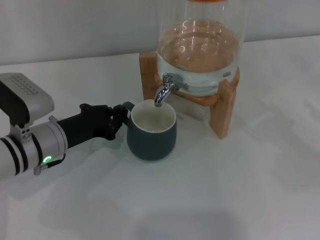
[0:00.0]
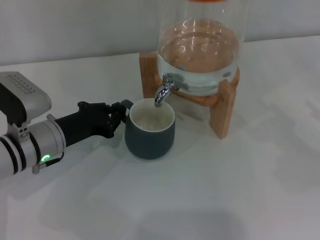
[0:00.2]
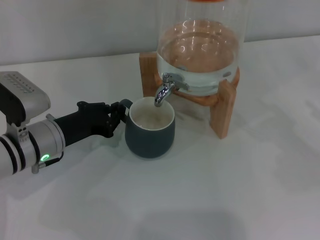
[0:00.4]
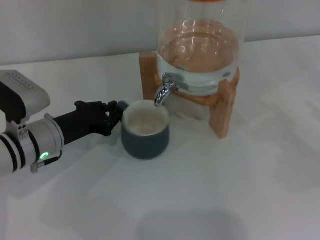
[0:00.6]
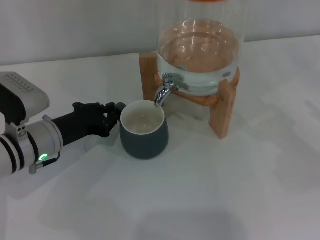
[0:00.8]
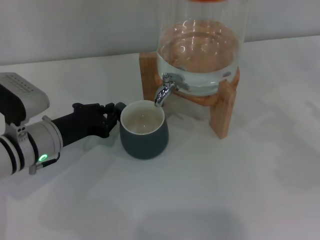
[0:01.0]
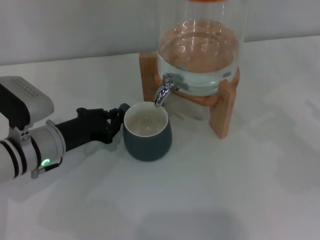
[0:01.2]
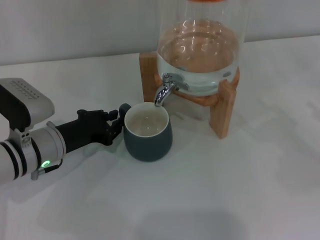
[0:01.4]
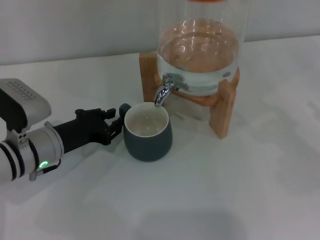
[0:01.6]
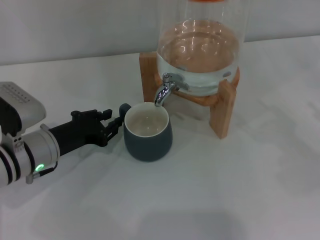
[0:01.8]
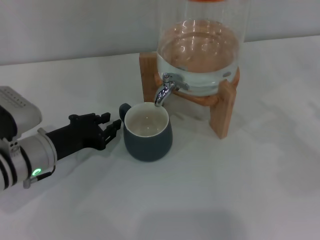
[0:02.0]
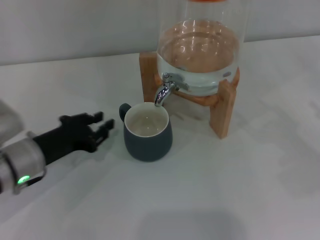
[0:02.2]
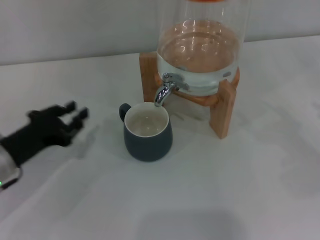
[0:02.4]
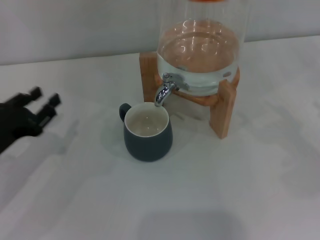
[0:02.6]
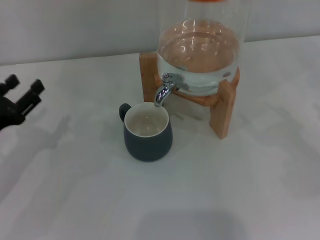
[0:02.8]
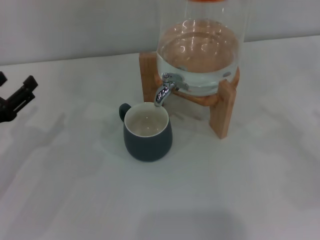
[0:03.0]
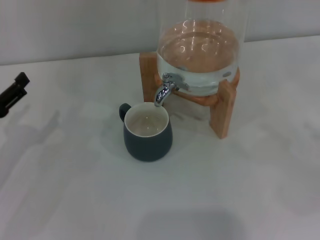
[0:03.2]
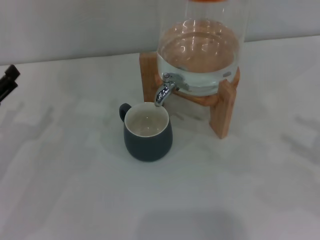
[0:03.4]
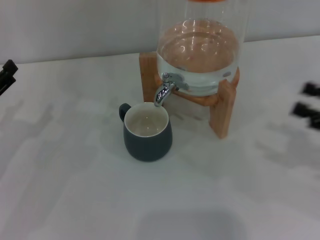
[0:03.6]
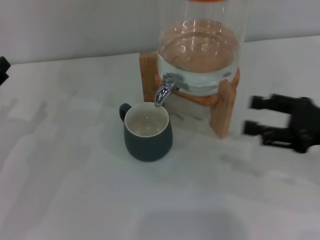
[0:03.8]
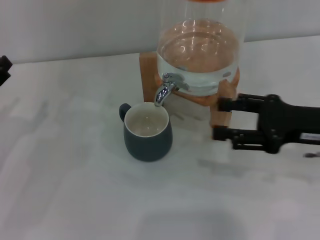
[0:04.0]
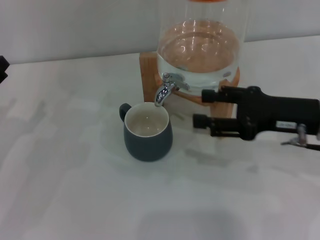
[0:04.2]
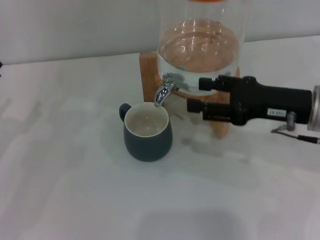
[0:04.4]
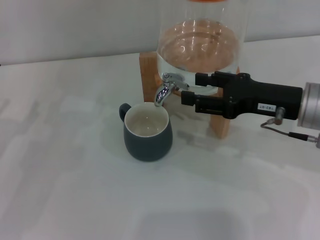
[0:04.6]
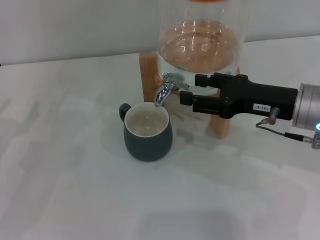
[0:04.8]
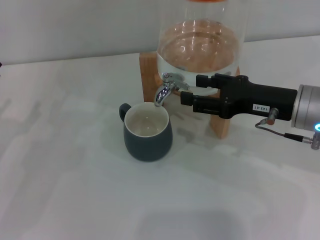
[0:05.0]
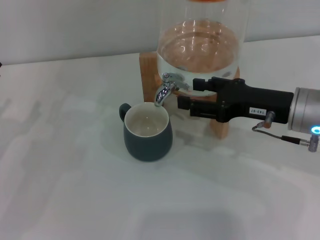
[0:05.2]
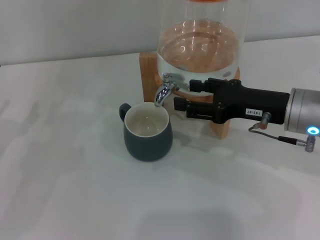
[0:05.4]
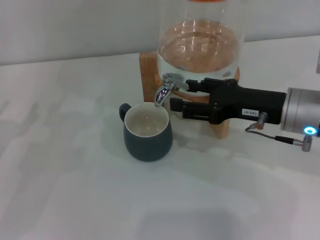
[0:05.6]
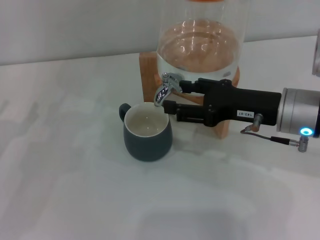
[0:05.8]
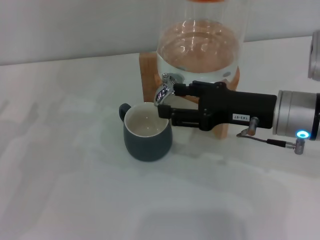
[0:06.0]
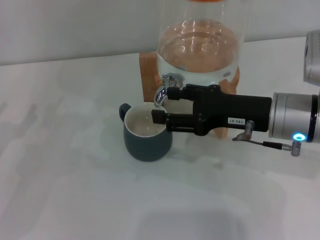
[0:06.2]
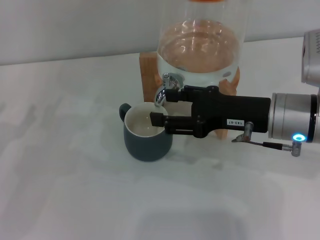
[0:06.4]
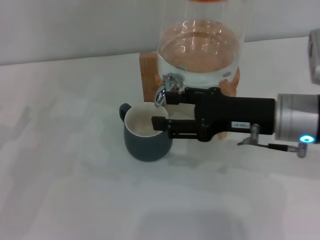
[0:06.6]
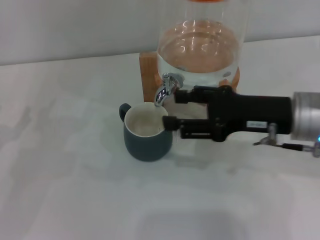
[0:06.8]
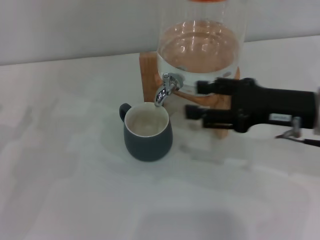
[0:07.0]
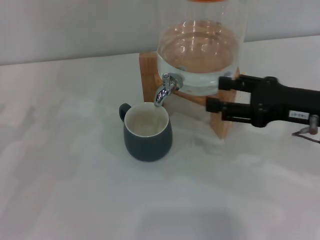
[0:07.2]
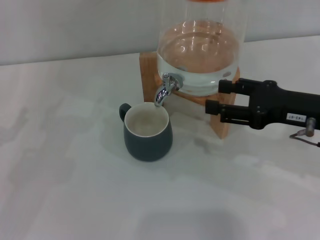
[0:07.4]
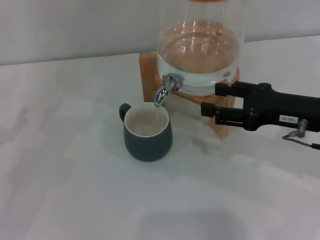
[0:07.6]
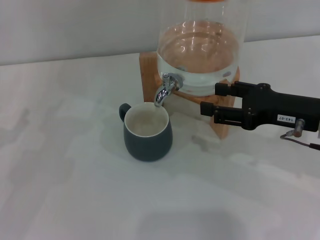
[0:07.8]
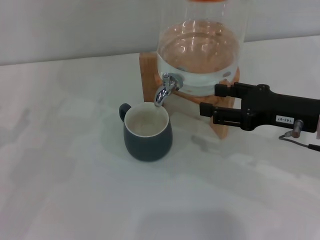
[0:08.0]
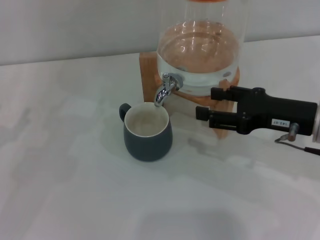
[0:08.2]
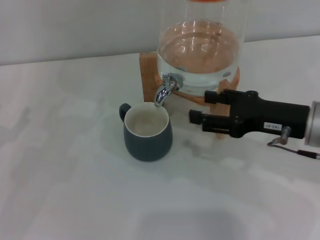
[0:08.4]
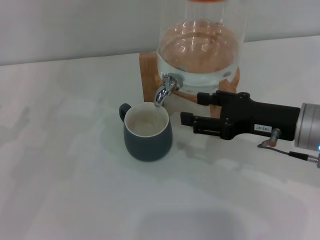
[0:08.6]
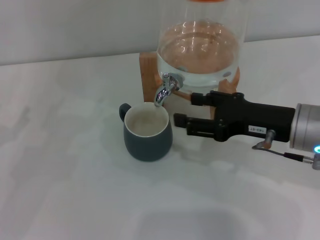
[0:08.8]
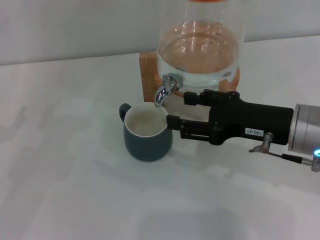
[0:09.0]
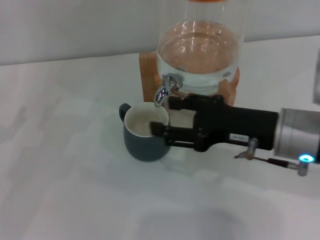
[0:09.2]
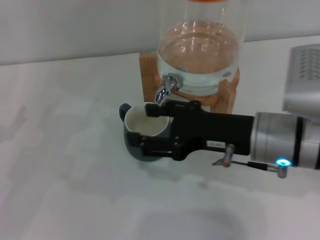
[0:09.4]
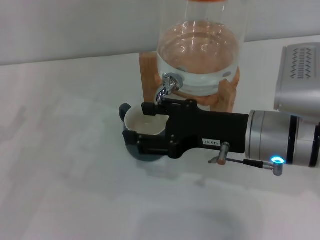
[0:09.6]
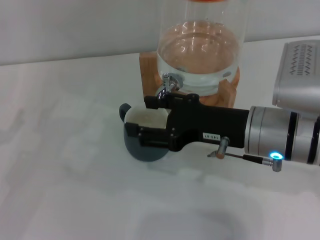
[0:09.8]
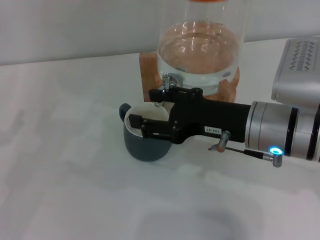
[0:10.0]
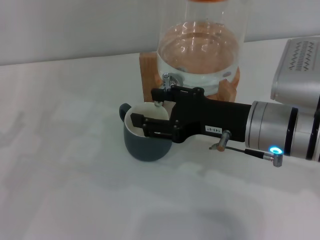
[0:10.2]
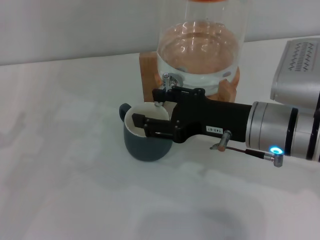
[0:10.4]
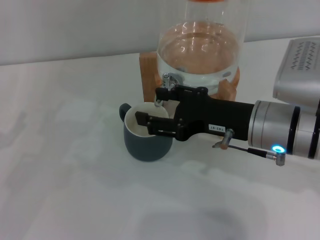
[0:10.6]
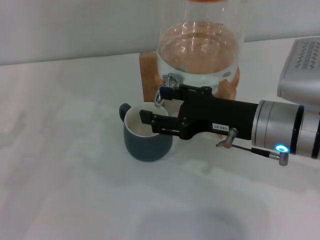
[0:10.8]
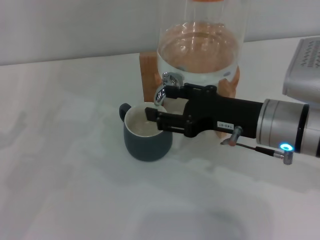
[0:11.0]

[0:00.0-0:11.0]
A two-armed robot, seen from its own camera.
Task of the whole recording: the left gripper pick up the black cup and place it horizontally under the faucet, the right gripper turn on the faucet to fill the cup, and then turn off the faucet.
Step, 2.0 to 6.6 s: Open the dispenser valve and fill the cup with water with the right gripper.
0.0 to 1.6 s: The two grippers keep their place.
1.6 to 3.2 s: The left gripper travels to the left and backward by some 10 cm, and opens.
3.2 to 4.8 s: The right gripper travels to the left and forward by approximately 20 cm.
4.8 to 6.2 s: There are only small adjustments of the grippers.
6.2 to 7.8 s: The right gripper is displaced to the right by roughly 5 cm.
7.8 to 9.4 s: The right gripper shifts approximately 10 cm to the left.
9.4 to 11.0 s: The grippers move only a little.

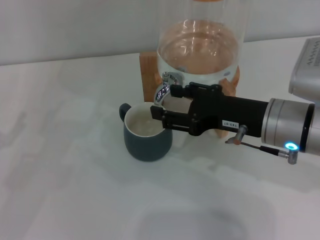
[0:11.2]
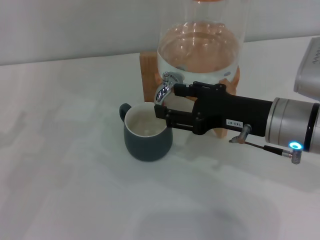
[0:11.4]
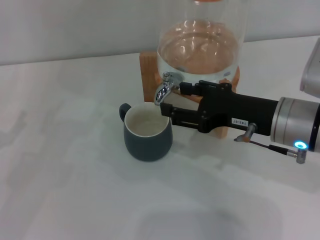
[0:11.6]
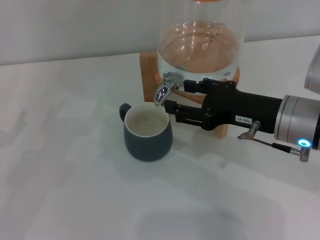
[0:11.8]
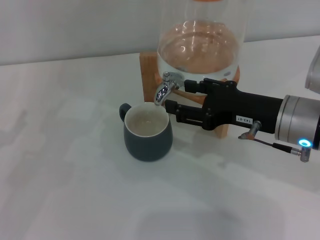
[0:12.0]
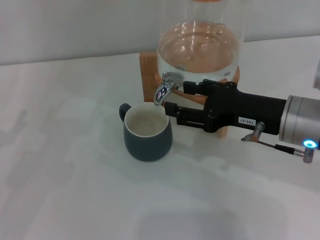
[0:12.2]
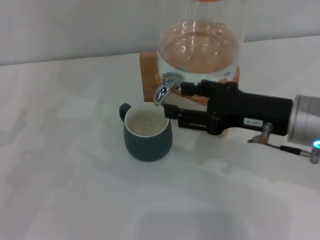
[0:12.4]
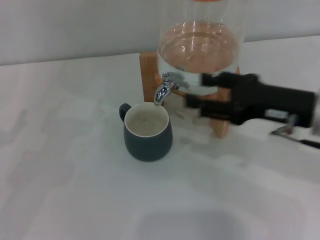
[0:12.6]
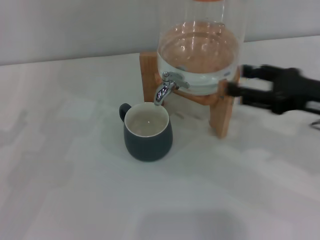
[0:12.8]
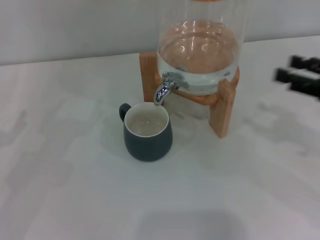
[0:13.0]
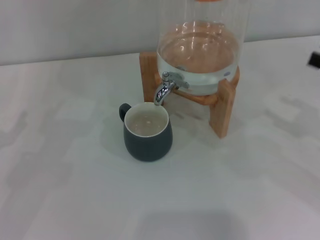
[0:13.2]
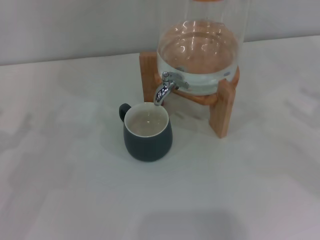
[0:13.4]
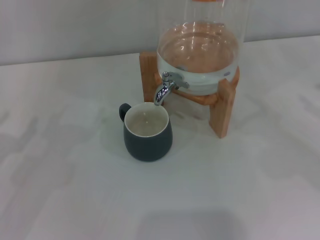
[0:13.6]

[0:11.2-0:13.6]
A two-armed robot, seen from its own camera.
Task of the whole recording: the left gripper pick up the black cup and place it horizontally under the faucet, the right gripper turn on the faucet to fill the cup, and then turn off the faucet.
11.2 to 12.4 s: The grippers make only small movements.
12.4 to 13.6 s: The right gripper goes approximately 20 cm to the right.

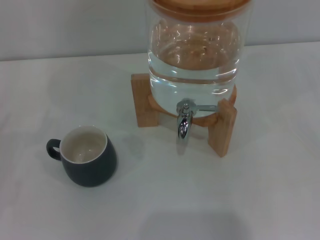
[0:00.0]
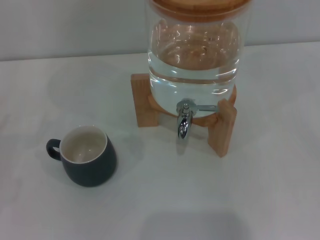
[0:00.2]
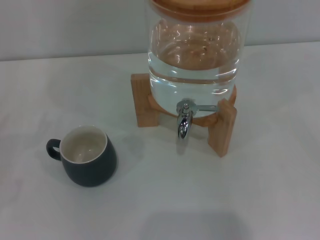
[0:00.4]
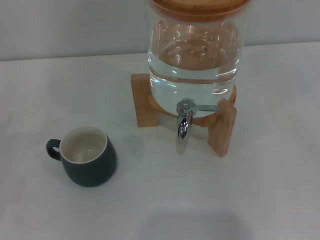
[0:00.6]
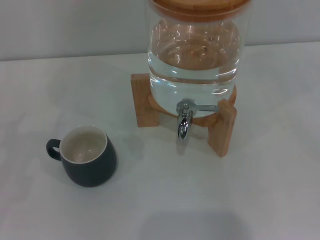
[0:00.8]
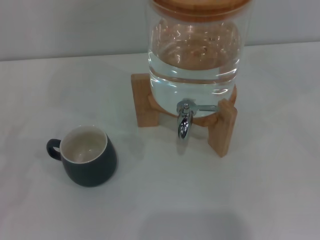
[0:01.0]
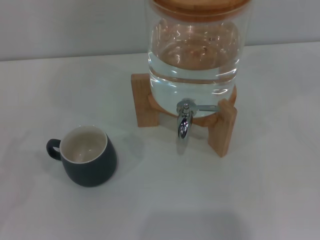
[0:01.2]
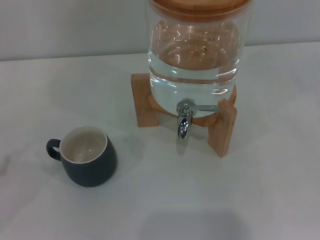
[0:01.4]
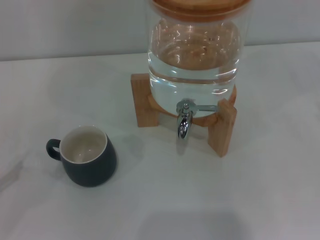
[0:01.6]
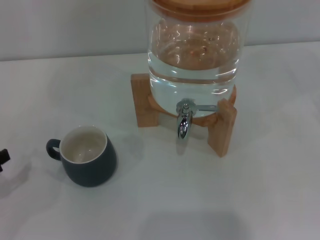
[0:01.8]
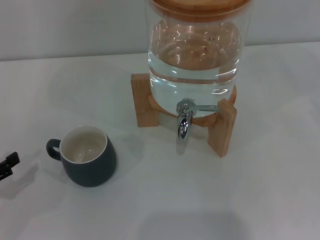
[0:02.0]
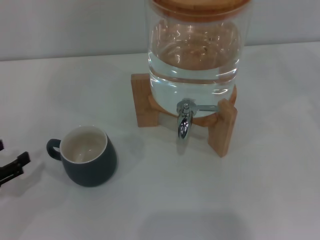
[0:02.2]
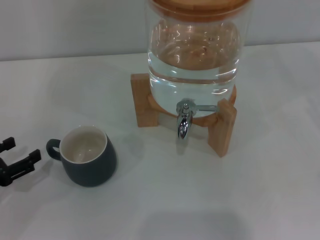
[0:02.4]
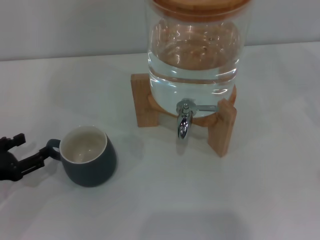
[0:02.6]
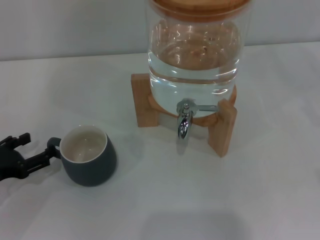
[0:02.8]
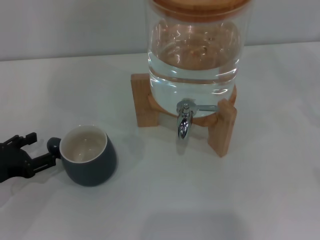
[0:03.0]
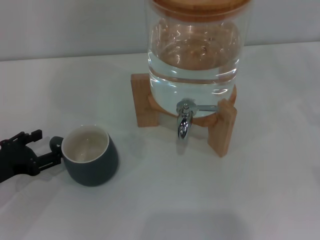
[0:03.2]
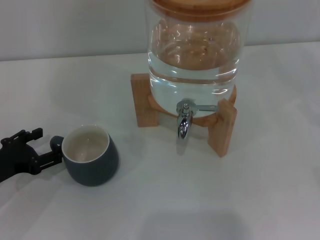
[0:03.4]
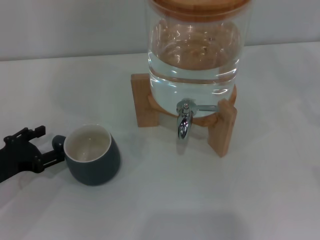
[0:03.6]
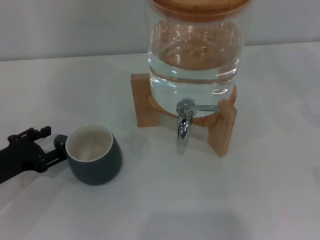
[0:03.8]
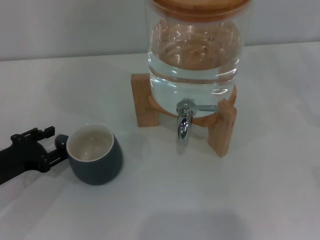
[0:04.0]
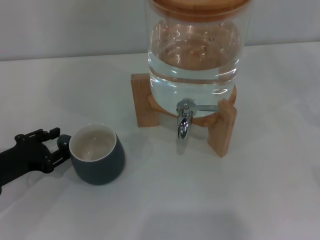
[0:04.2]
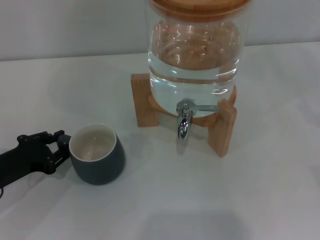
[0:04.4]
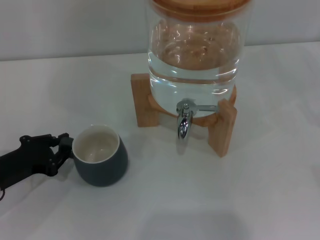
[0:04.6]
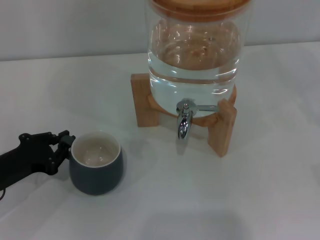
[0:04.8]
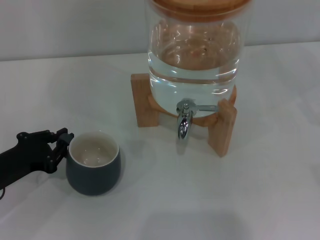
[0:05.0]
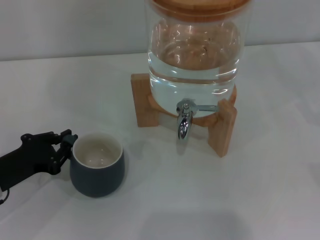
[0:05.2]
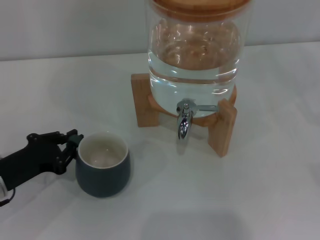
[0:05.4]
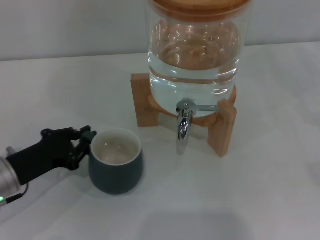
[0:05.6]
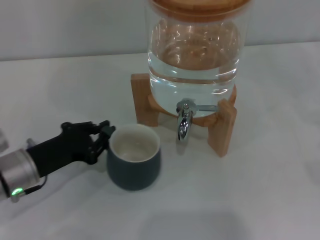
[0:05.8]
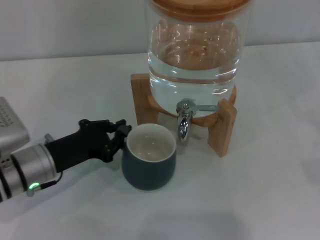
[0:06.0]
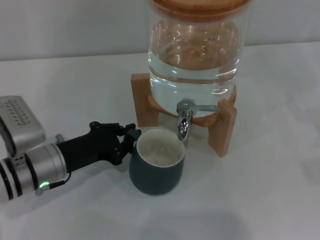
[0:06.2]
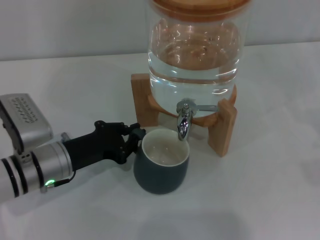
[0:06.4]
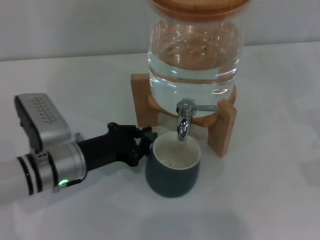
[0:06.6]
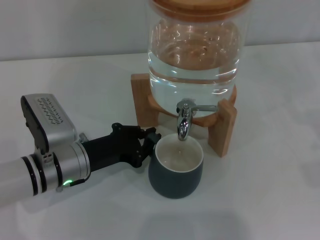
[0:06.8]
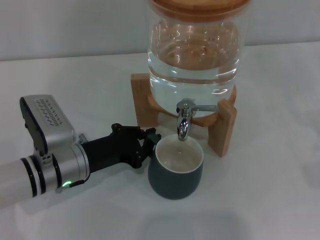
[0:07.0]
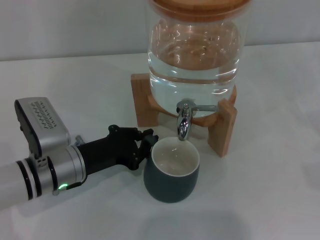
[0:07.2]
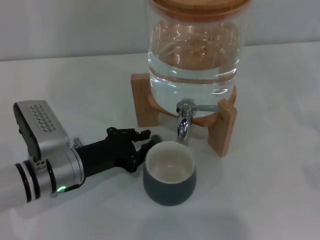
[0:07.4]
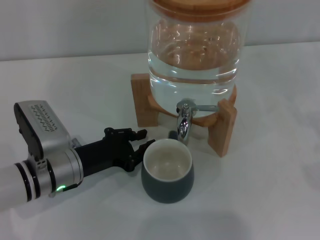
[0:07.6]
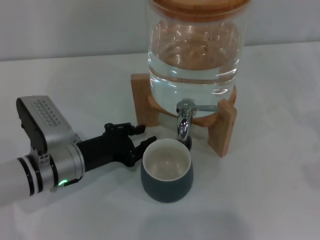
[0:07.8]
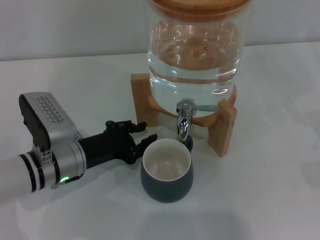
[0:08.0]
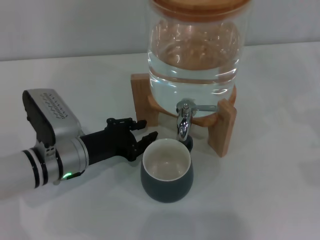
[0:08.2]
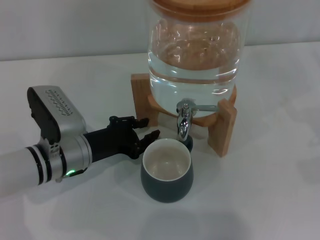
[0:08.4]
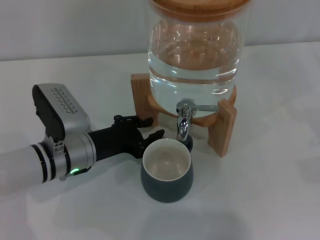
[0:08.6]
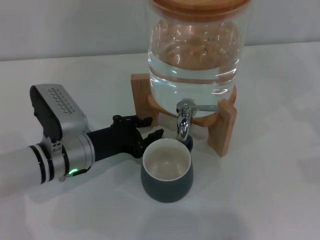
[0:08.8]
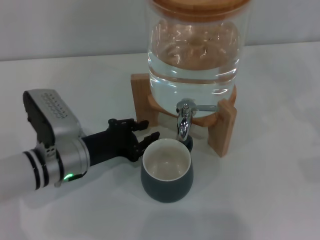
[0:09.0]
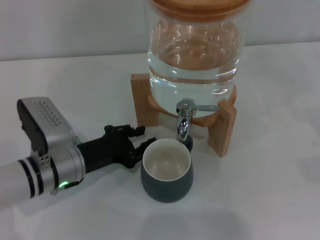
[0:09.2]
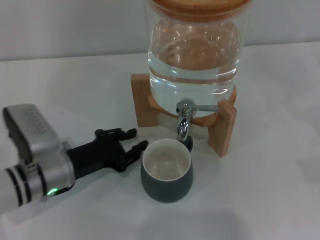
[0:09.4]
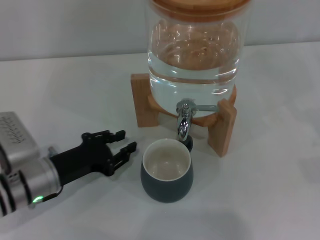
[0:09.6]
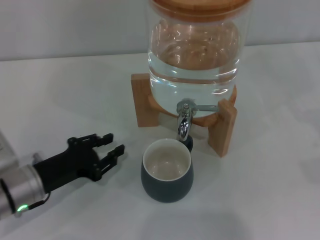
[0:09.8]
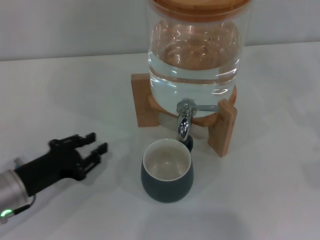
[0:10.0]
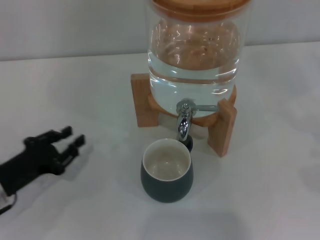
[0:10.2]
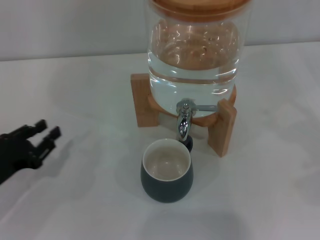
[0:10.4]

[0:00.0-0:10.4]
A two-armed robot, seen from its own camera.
Task of the whole recording: the left gripper pick up the black cup and place it horizontally under the faucet, the right gripper turn on the faucet to fill the cup, and then turn off the faucet.
Step, 0.0 to 9.8 s: Move the cup beneath the water dispenser nozzle with the left gripper.
1.4 to 3.0 s: The left gripper travels to the right, downward and forward by approximately 10 cm.
3.0 to 4.4 s: The grippers move only a little.
4.4 to 6.0 s: The left gripper moves to the right, some 10 cm, and closes up.
6.0 to 7.4 s: The grippers make only small movements.
7.4 to 9.0 s: There are only small adjustments of the grippers.
9.0 to 10.4 s: The left gripper goes roughly 15 cm to the left and backward.
